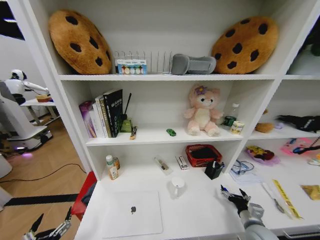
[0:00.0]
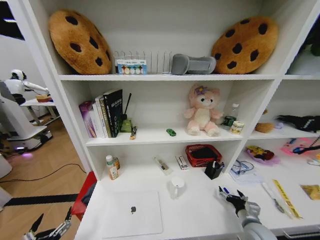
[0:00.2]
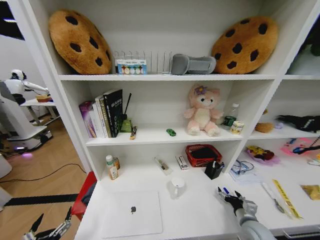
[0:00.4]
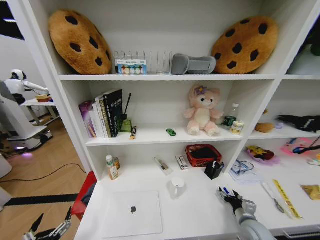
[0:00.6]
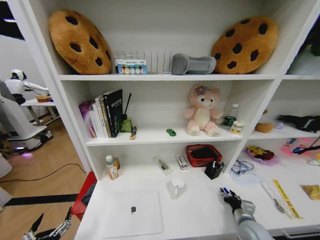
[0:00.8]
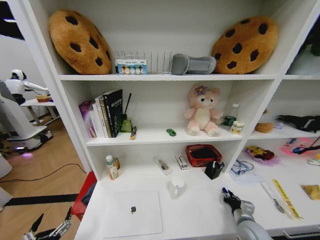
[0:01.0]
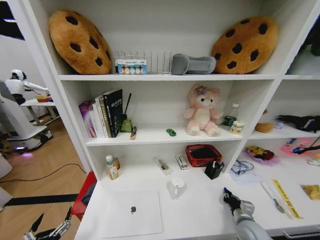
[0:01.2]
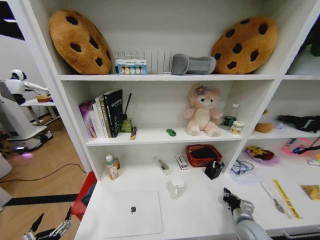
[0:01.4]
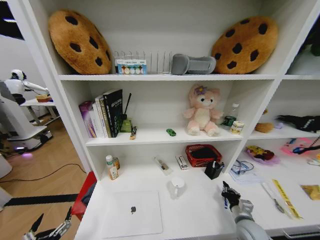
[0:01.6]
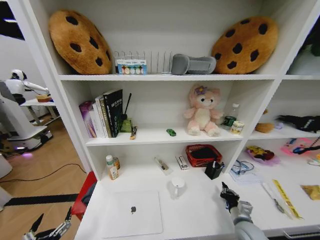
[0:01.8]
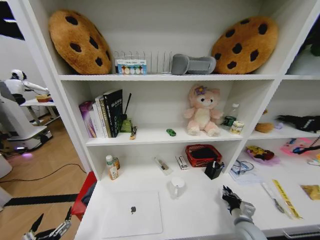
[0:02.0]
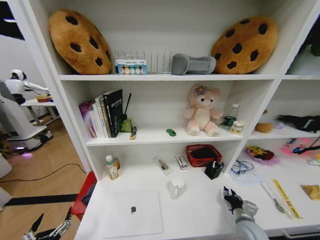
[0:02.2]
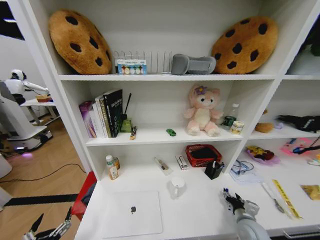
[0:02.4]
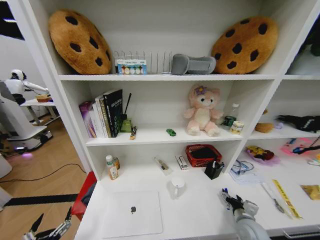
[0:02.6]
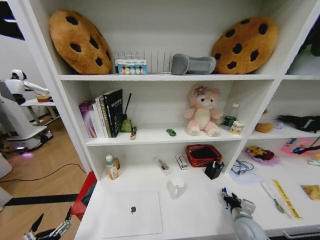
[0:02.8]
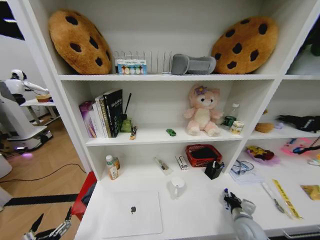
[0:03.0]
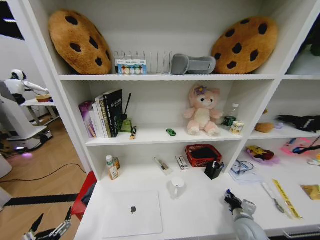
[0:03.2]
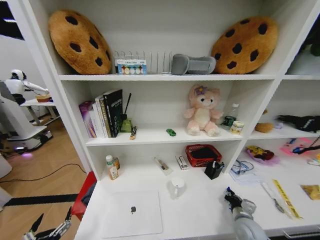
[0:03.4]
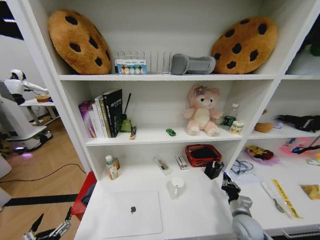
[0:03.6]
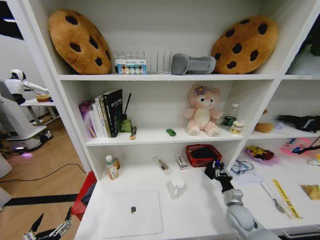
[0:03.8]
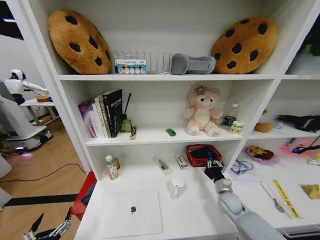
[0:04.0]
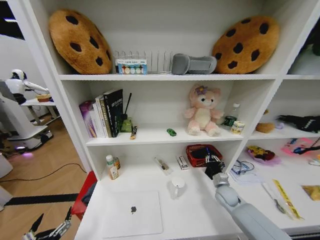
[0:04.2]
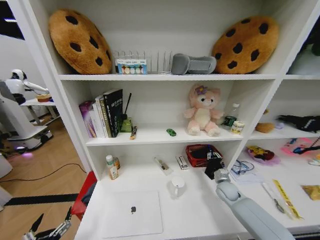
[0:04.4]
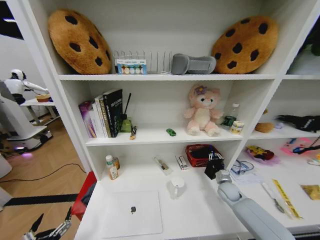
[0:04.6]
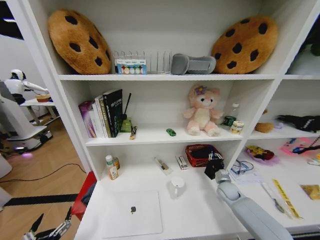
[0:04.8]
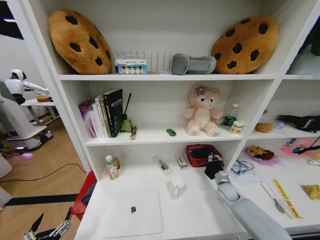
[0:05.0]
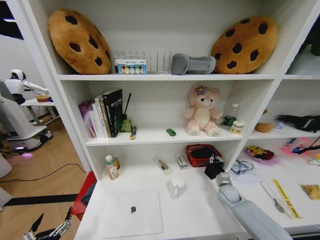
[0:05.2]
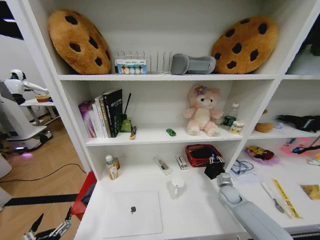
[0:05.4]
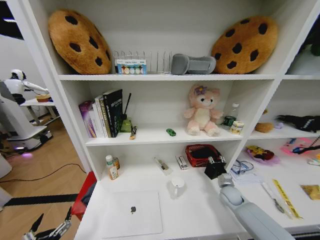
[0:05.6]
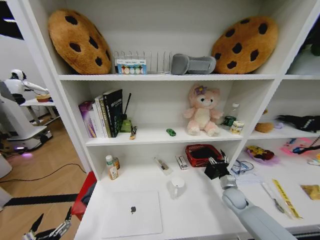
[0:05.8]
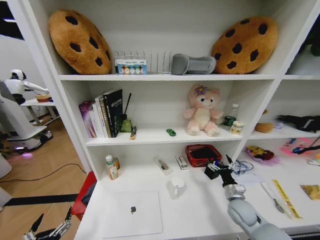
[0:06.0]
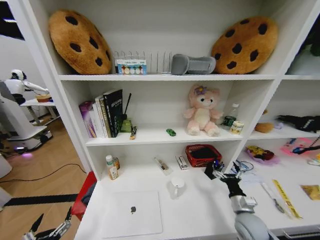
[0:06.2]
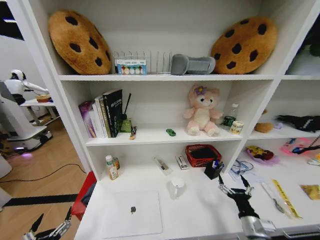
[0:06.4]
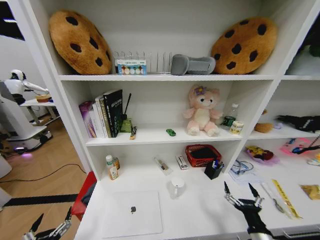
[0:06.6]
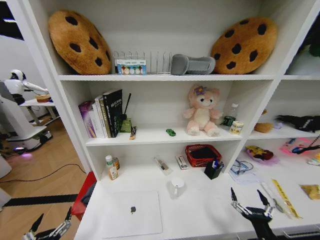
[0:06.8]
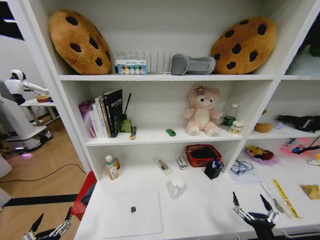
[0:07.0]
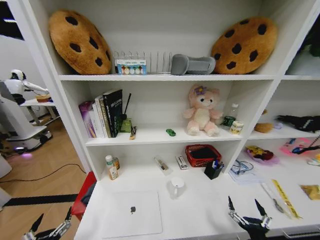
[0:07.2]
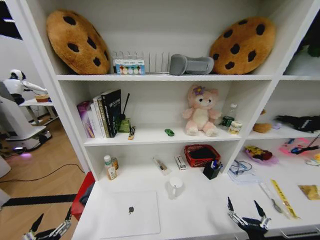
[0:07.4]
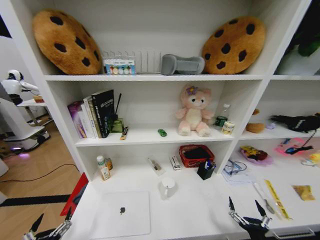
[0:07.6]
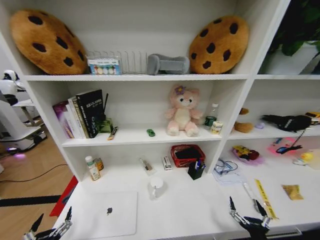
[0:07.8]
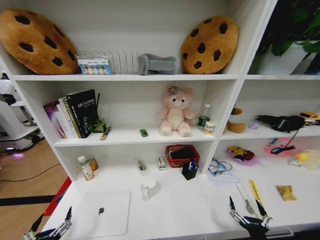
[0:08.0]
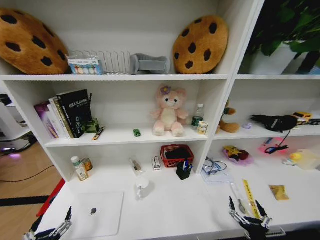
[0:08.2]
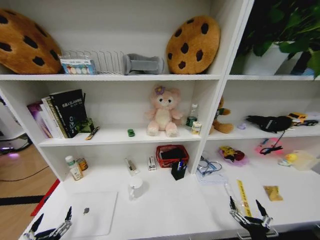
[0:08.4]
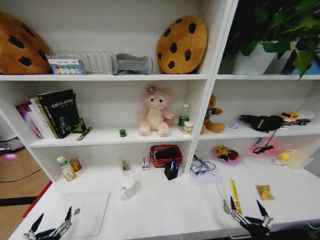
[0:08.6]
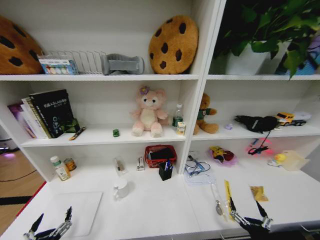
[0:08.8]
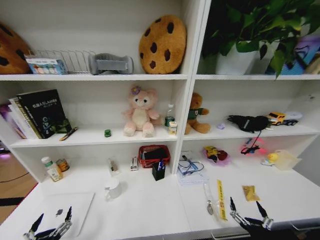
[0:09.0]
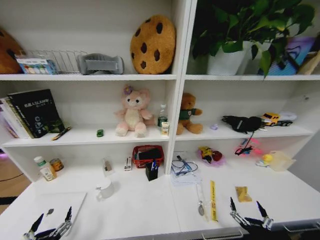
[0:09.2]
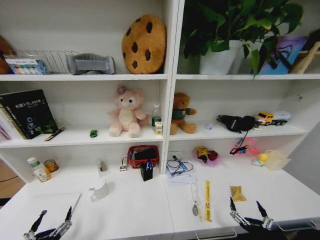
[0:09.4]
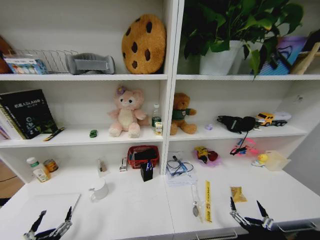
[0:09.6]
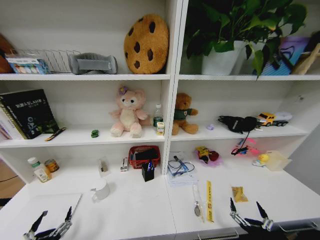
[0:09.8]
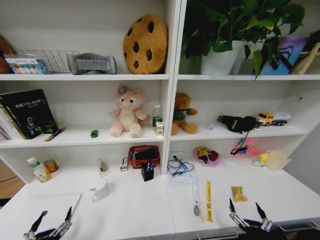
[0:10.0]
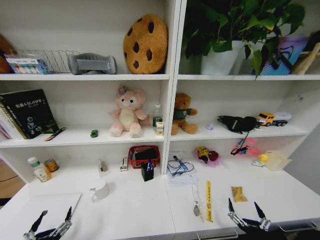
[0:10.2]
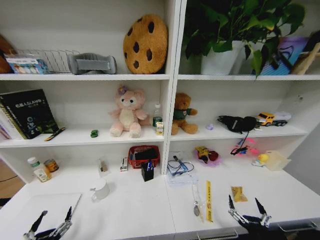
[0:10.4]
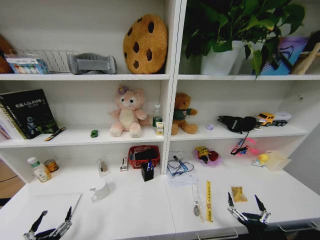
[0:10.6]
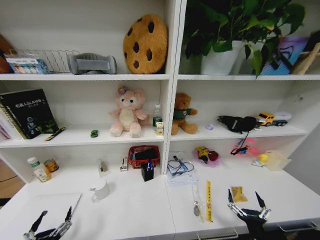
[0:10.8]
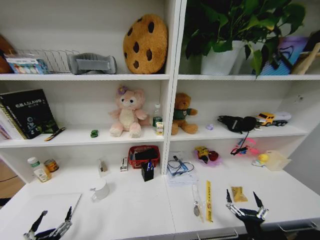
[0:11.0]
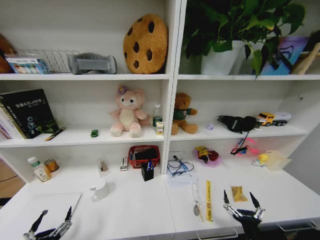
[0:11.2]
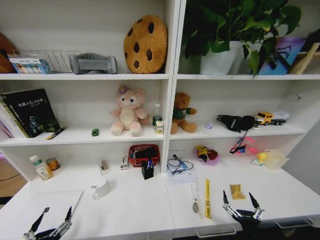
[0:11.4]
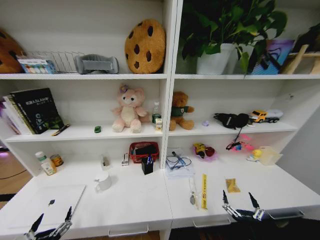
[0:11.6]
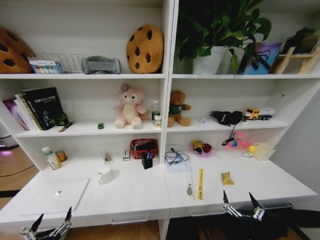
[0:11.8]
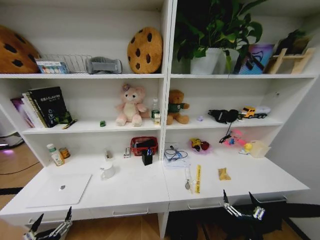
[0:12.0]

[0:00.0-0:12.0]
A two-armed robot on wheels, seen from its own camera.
Task of the whole recording: Organize the objects on the table.
0:00.0 to 0:01.6: The right gripper closes its fingers.
0:01.6 to 0:03.0: The right gripper opens its fingers.
0:03.0 to 0:04.4: The right gripper heads forward, covering some 15 cm.
0:04.4 to 0:06.0: The right gripper heads backward, covering roughly 10 cm, and opens.
0:06.0 to 0:07.6: The right gripper travels backward by approximately 25 cm.

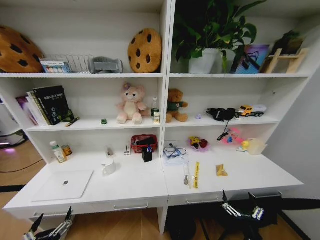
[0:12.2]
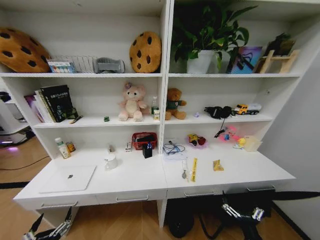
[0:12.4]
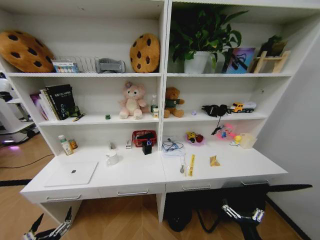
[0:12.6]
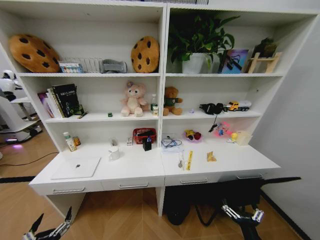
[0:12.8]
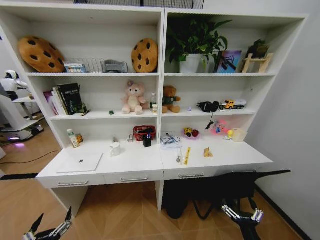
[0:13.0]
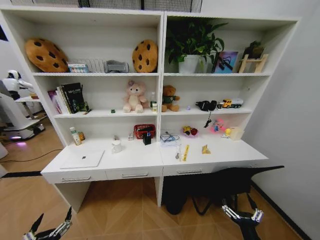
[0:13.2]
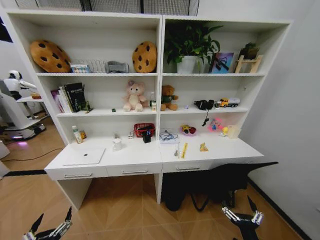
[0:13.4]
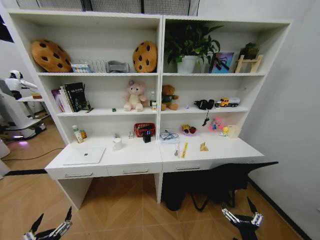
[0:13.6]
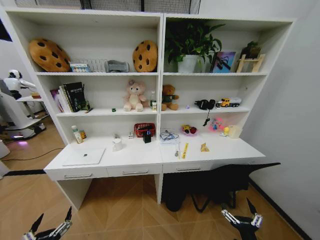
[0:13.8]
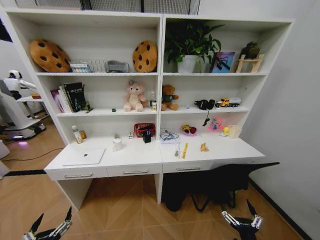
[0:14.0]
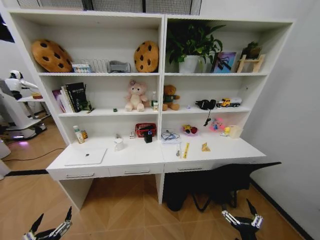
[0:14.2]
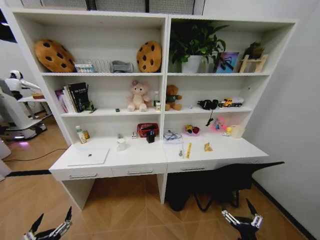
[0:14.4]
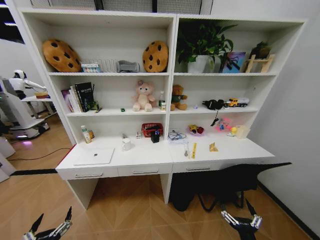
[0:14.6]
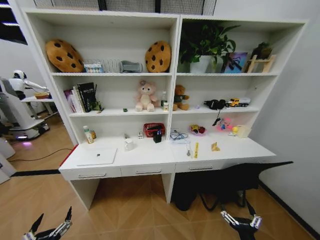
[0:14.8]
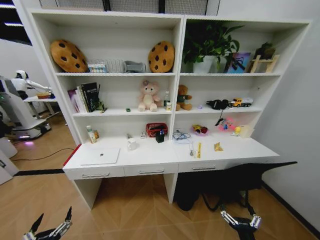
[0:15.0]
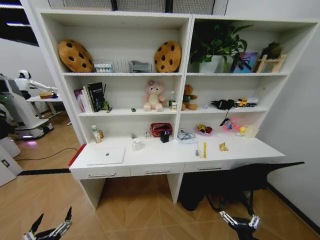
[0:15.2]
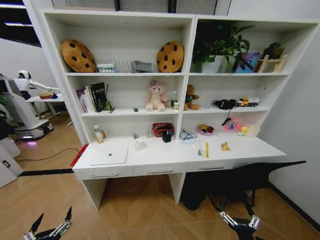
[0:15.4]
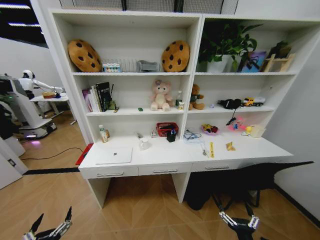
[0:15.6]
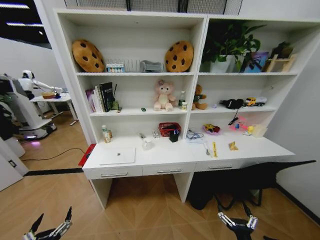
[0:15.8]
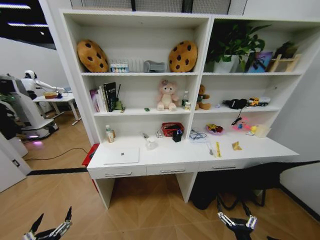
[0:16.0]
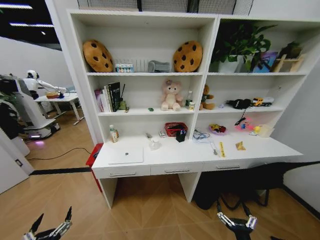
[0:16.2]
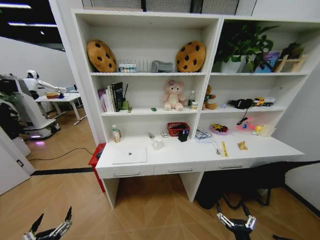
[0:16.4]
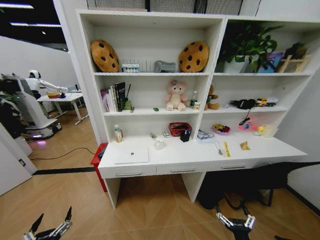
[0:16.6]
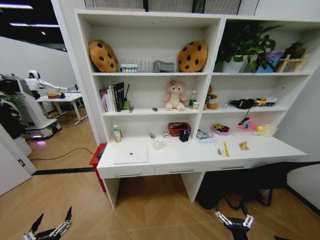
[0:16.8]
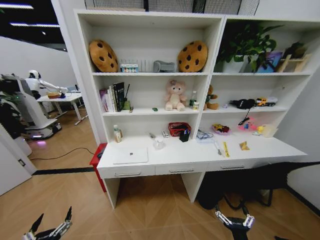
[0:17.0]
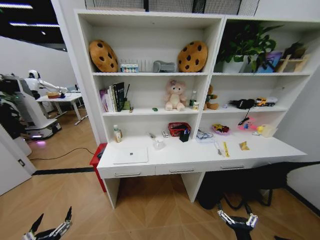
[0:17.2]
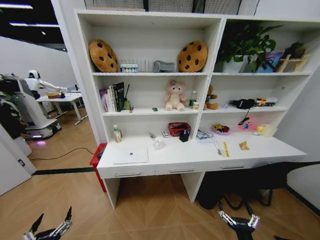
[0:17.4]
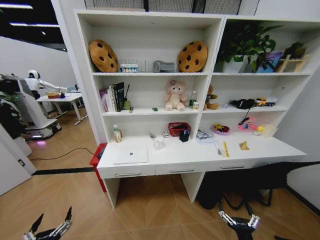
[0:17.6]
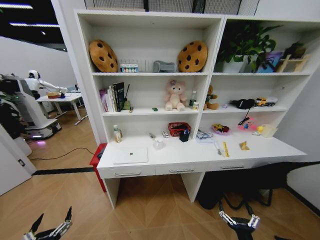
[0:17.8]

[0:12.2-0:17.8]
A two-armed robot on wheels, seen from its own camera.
Task of the whole recording: Organize the objects on the table.
0:16.4 to 0:17.8: The grippers move only a little.
